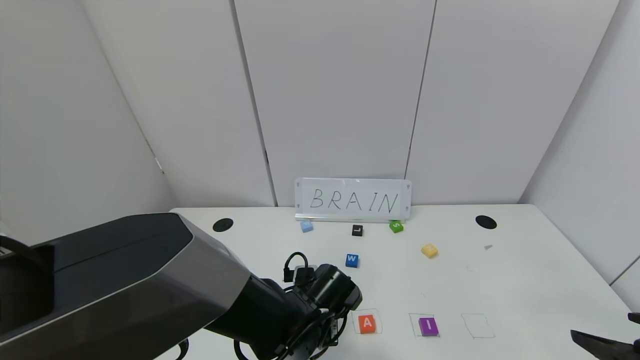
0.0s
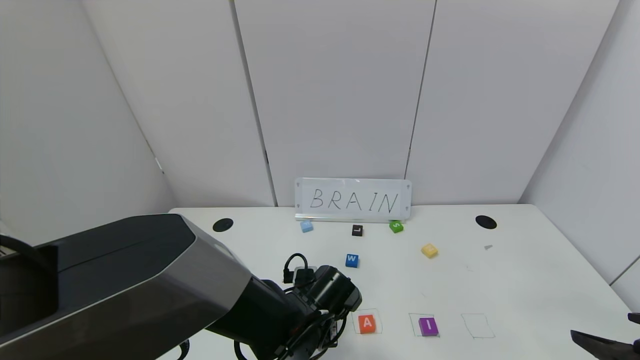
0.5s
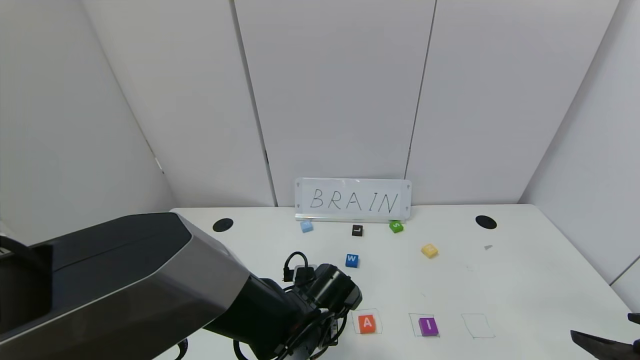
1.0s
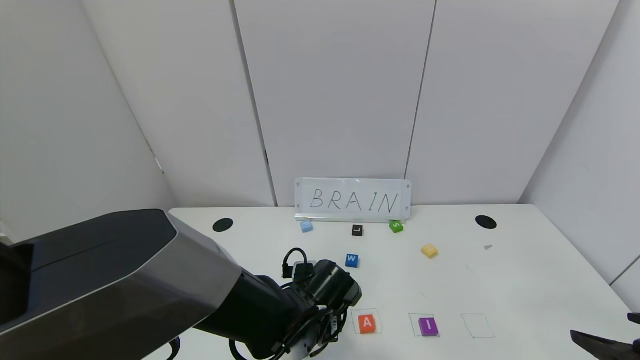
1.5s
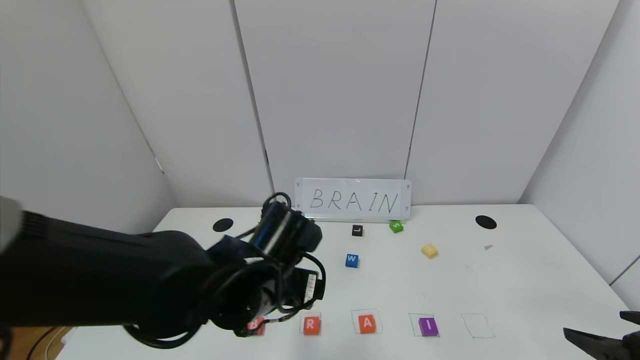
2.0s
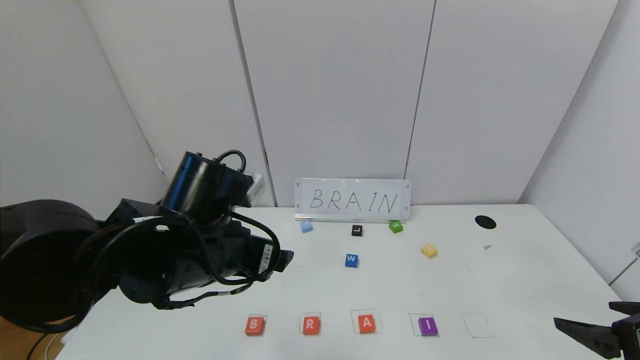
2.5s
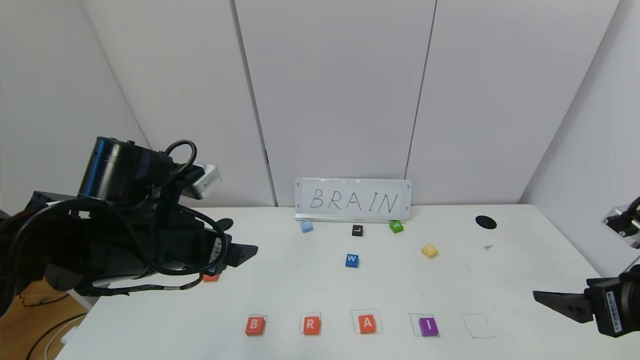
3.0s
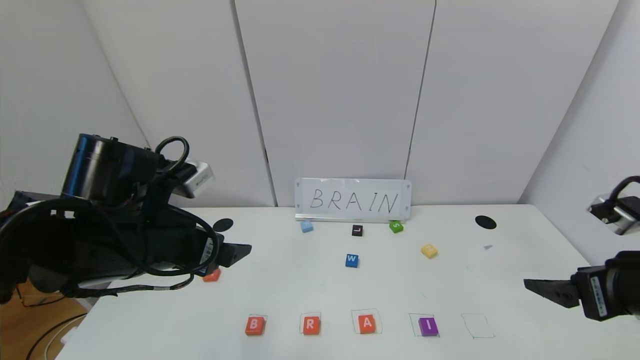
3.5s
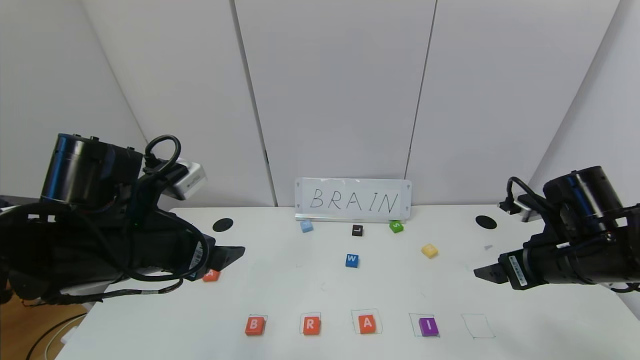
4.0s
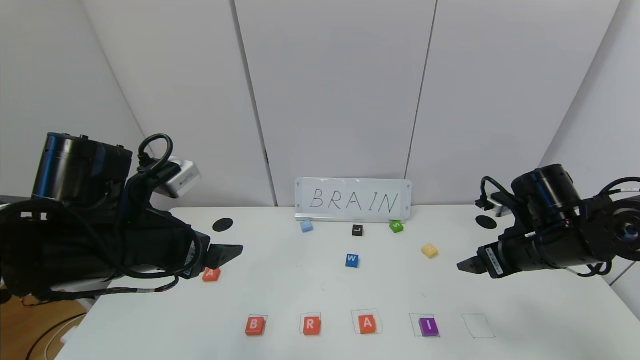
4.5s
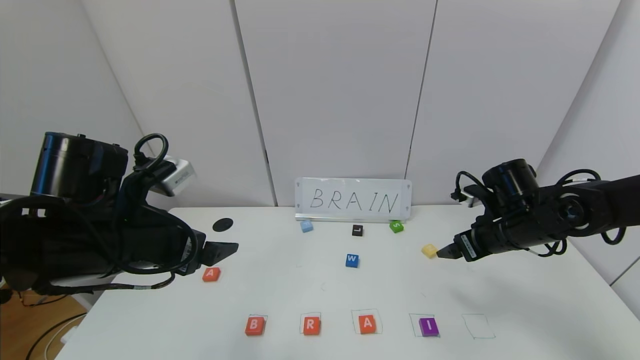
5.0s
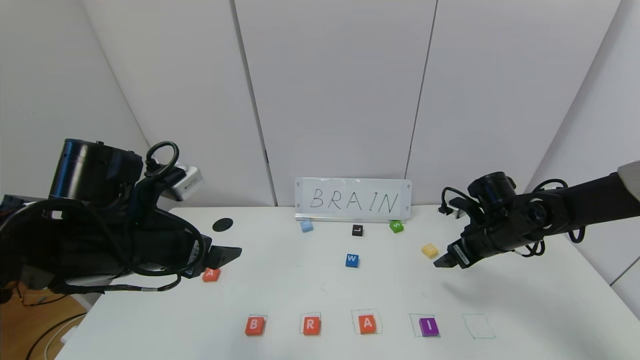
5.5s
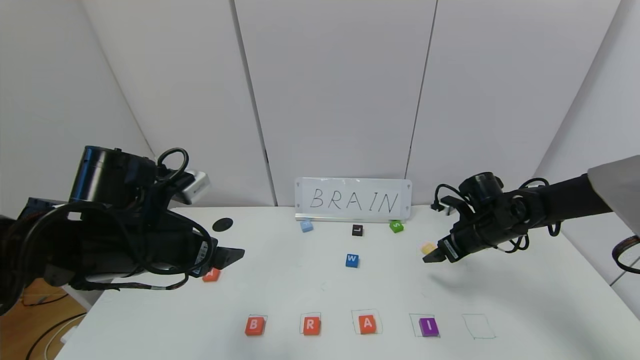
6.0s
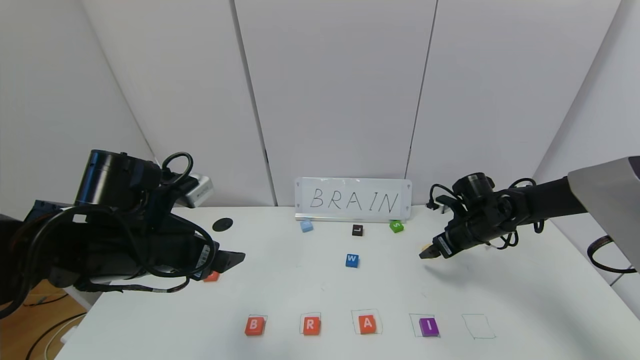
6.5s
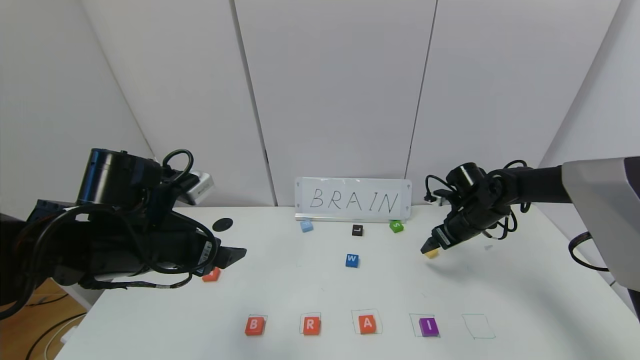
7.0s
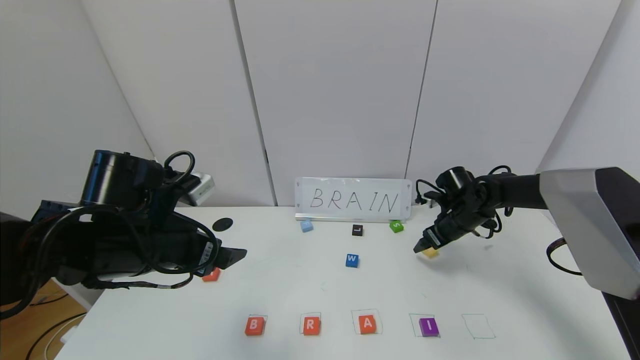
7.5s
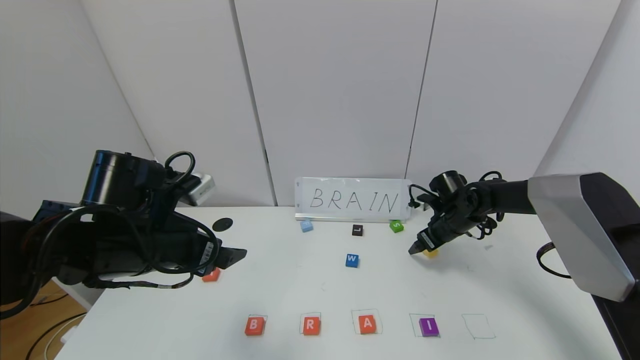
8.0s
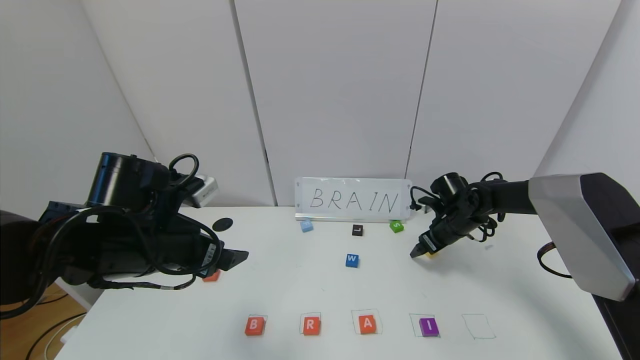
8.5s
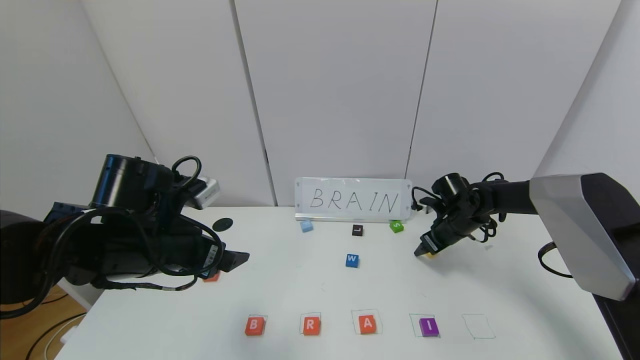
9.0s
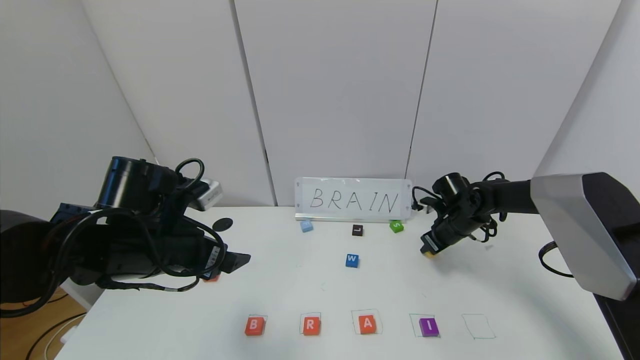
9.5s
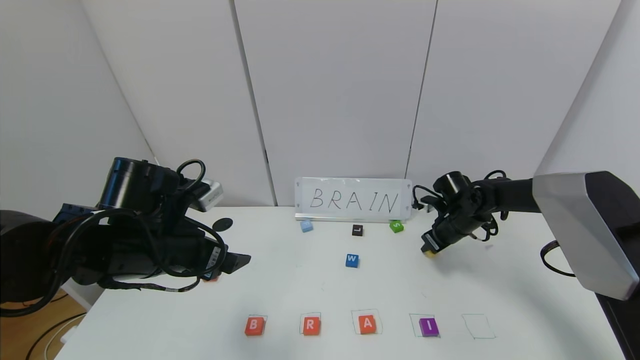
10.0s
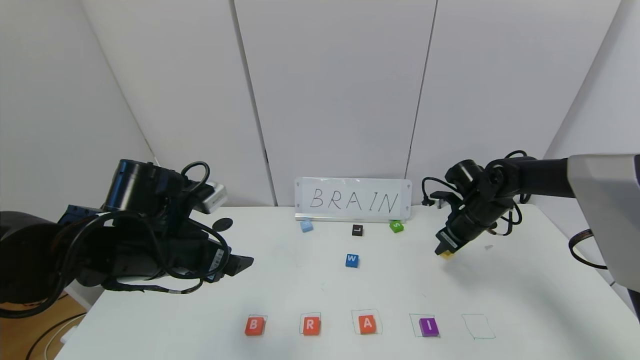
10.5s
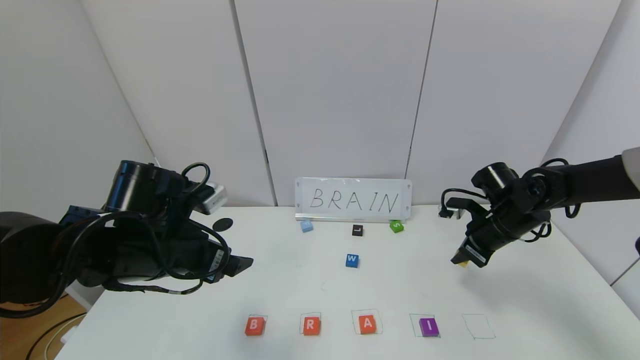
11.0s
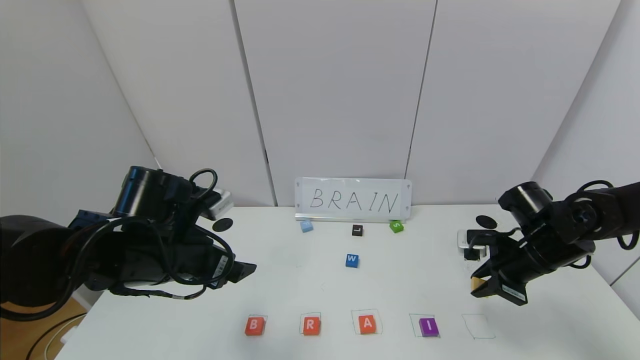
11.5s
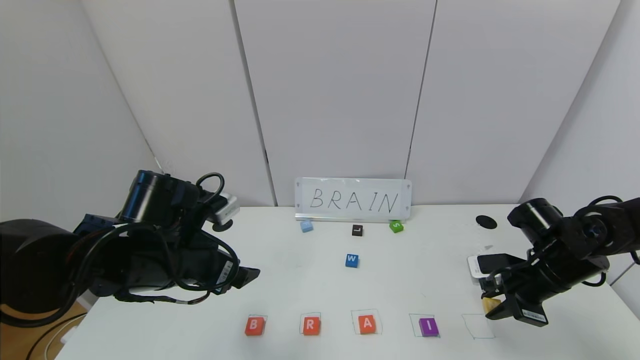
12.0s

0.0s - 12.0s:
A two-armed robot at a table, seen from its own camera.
Task of the whole recording: use the gripper to find blocks with the letters b, a, a, and i on the table and arrange them into BAAI, then find r and N and turn the arranged baai into brian.
0.0s - 2.0s: The left gripper moves upward, about 10 cm, and opens up.
2.0s - 4.0s: The right gripper is displaced forward by approximately 15 cm; the left gripper shifts approximately 15 cm to the left and upward.
4.0s - 6.0s: The right gripper travels forward and downward by approximately 15 cm.
6.0s - 8.0s: The right gripper is displaced forward by approximately 5 cm.
8.0s - 10.0s: The right gripper closes up.
10.0s - 12.0s: The right gripper heads backward, covering about 15 cm.

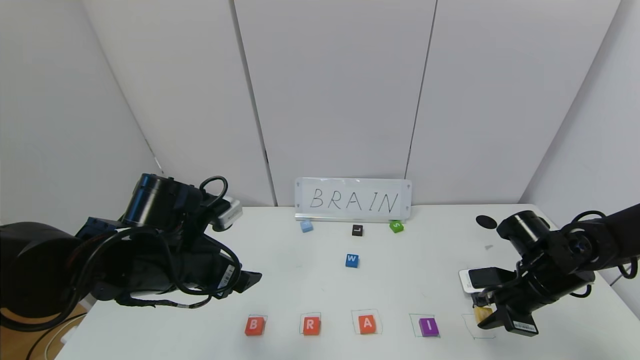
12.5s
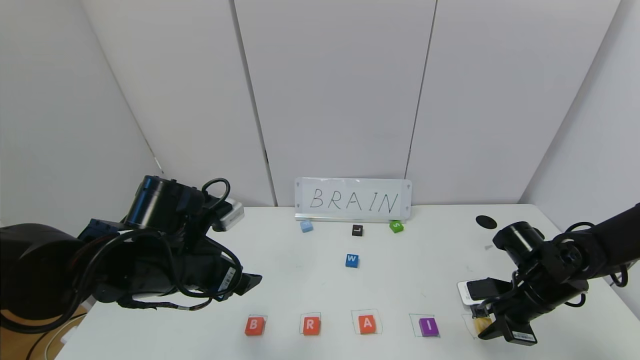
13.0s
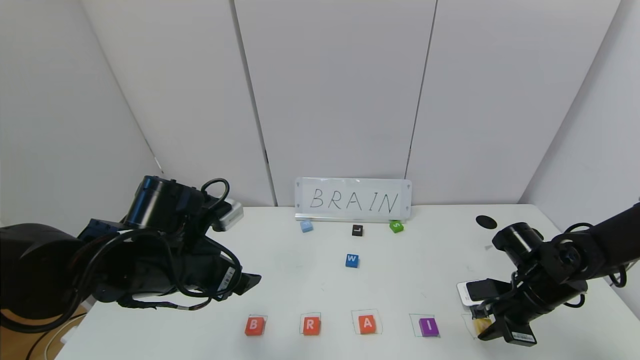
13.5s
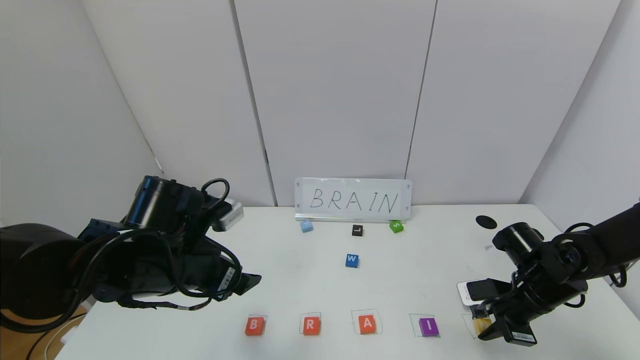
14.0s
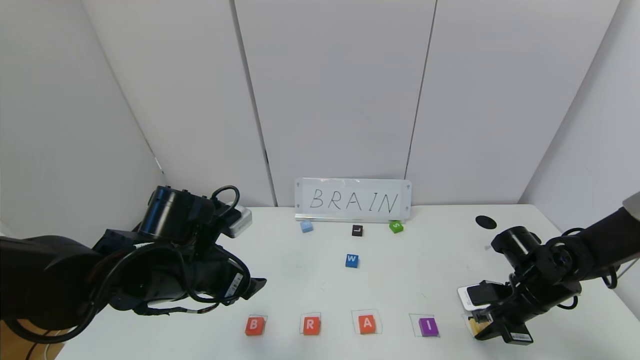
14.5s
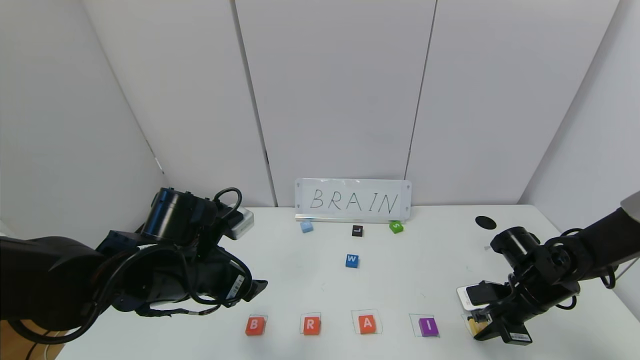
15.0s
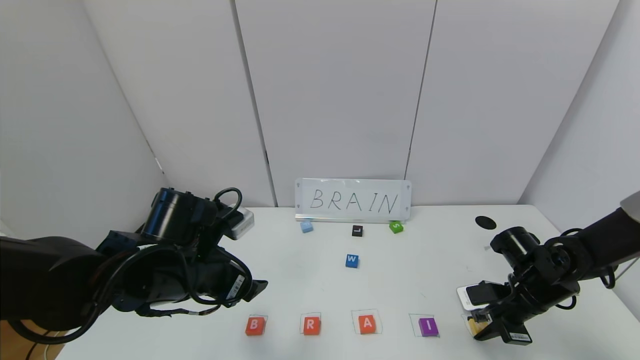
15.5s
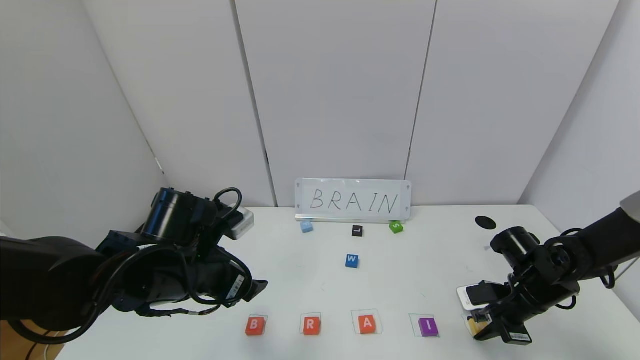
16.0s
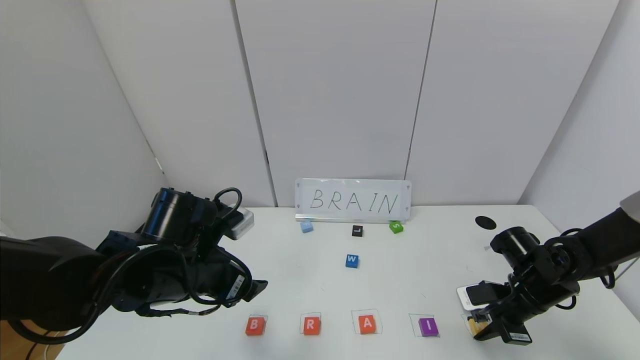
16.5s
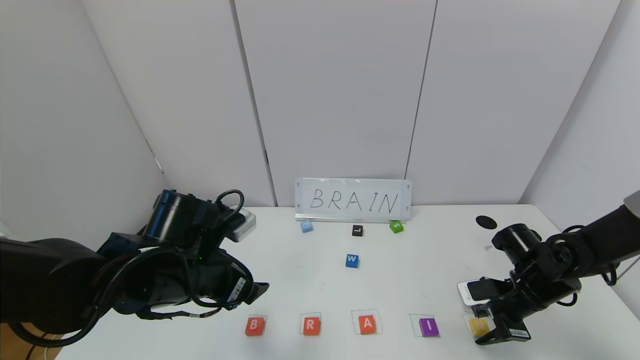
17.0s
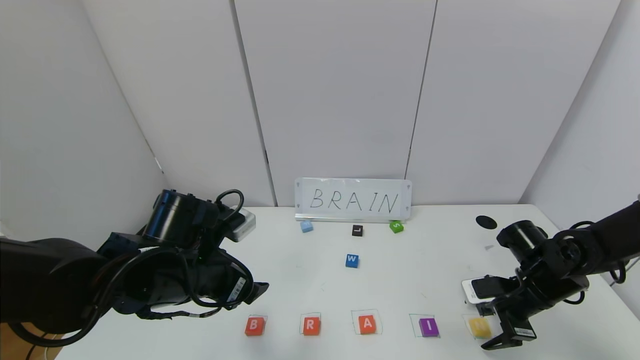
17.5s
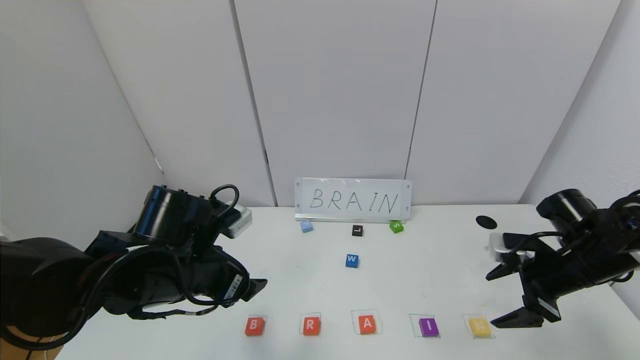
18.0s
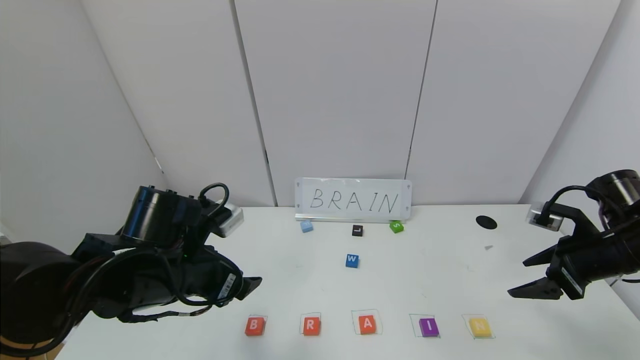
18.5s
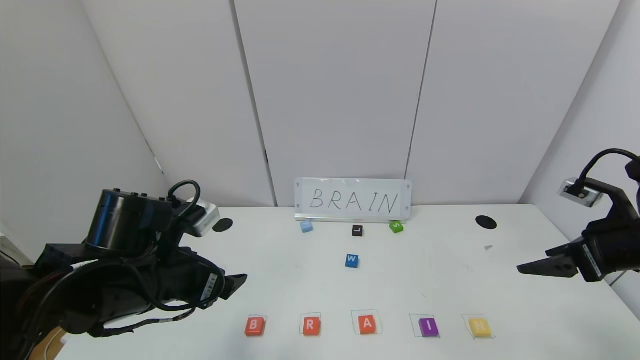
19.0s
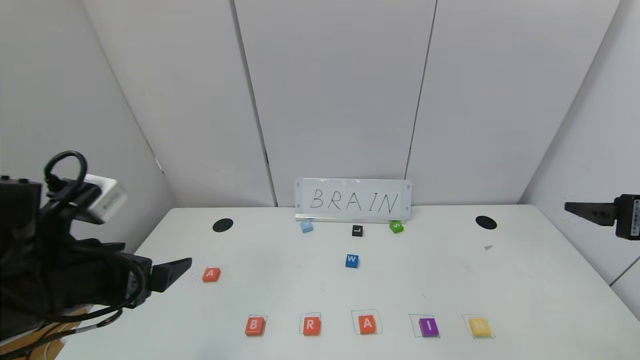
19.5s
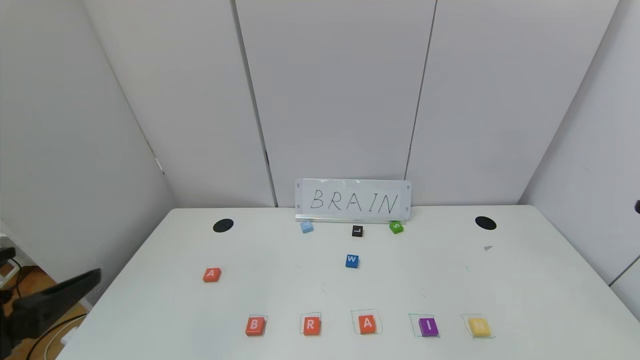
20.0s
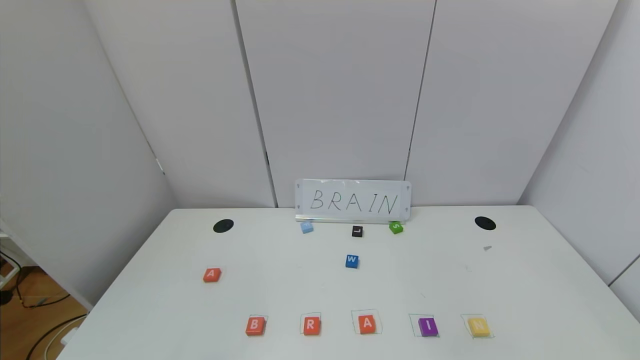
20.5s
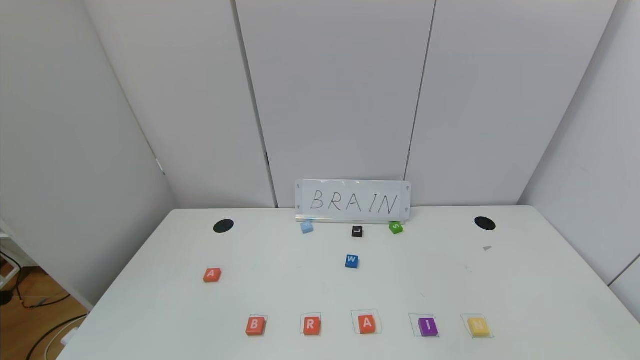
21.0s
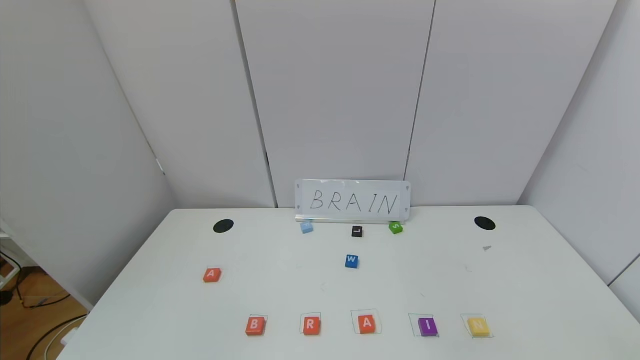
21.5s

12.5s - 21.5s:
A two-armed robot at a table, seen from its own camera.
Task of the whole recording: use the gripper to find blocks with the letters b, a, a, and i on the table and arrange them into BAAI, then find r and N and turn the arranged baai into brian.
Step, 12.5s - 17.5s: Place the block N in the fifth location.
12.5s - 14.5s: There are only small adjustments of the grippers.
14.5s - 17.0s: The right gripper opens its fingers.
17.0s - 19.5s: The left gripper goes about 15 cm backward, upward and to the left. Meanwhile the right gripper shifts approximately 25 cm upward and backward, and opens its fingers.
19.5s - 21.5s: The two grippers go some 25 cm backward.
